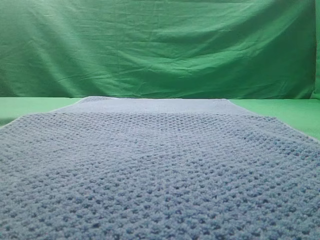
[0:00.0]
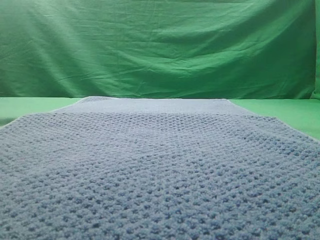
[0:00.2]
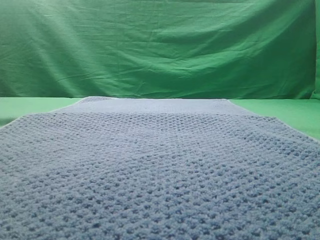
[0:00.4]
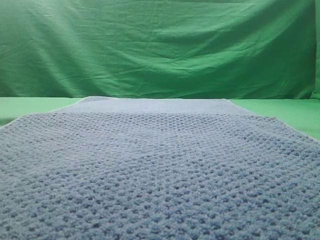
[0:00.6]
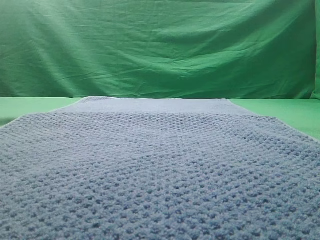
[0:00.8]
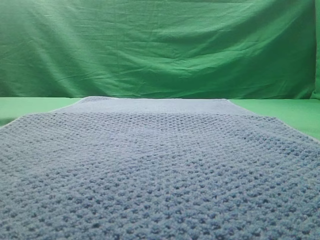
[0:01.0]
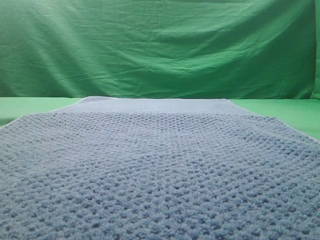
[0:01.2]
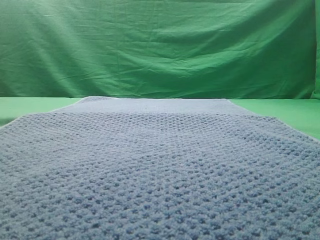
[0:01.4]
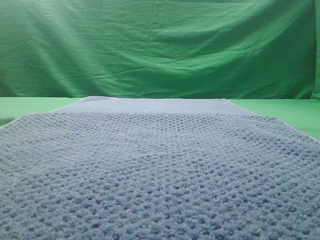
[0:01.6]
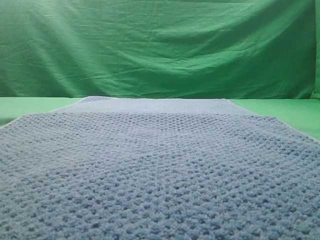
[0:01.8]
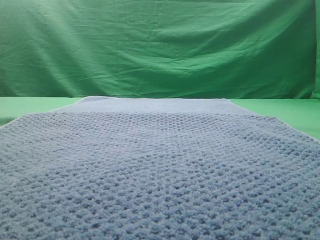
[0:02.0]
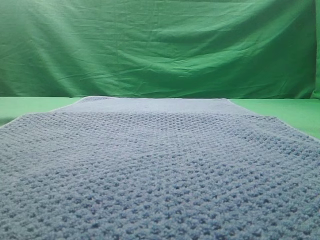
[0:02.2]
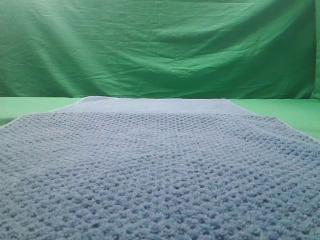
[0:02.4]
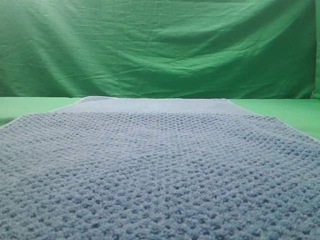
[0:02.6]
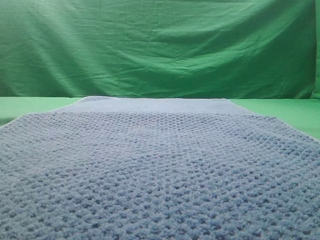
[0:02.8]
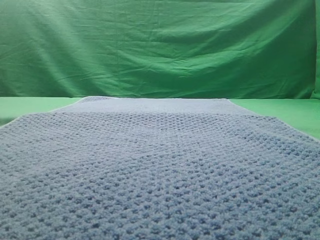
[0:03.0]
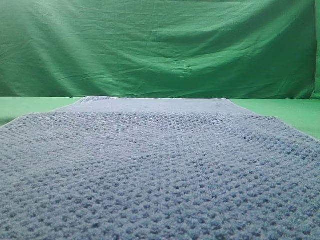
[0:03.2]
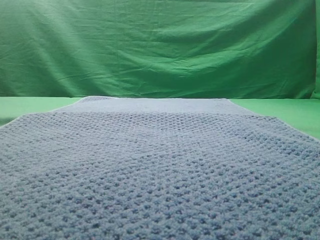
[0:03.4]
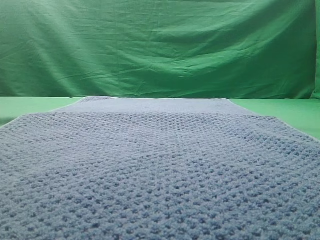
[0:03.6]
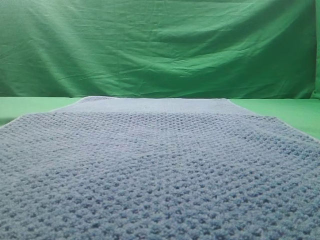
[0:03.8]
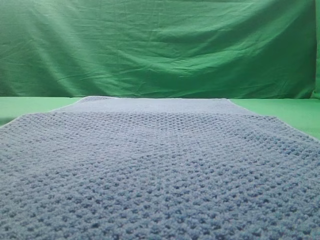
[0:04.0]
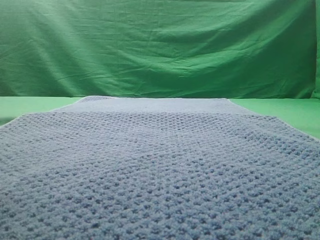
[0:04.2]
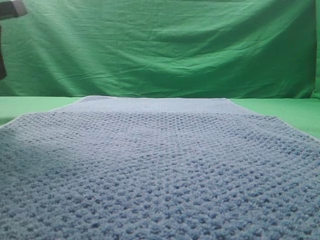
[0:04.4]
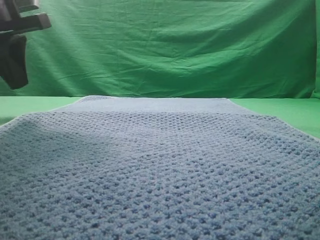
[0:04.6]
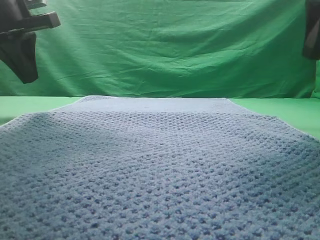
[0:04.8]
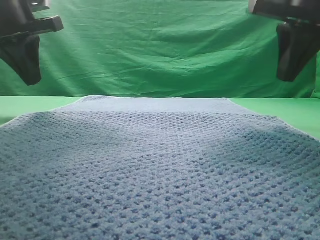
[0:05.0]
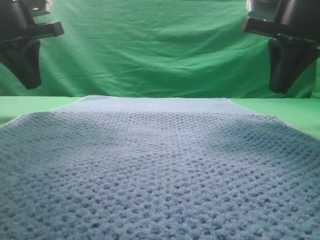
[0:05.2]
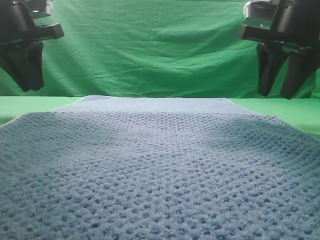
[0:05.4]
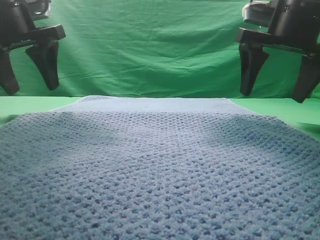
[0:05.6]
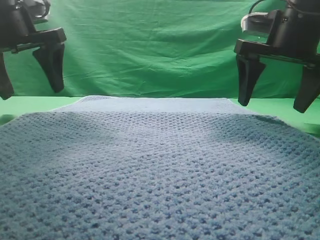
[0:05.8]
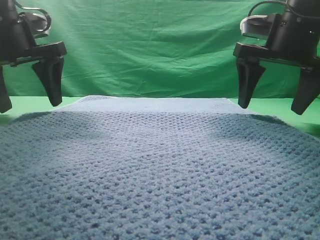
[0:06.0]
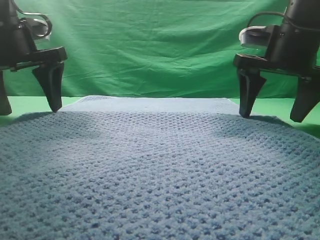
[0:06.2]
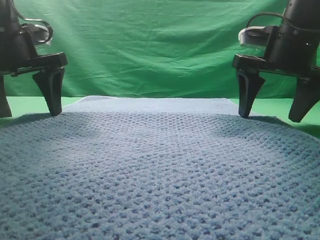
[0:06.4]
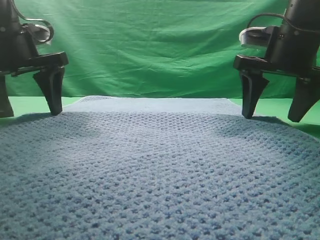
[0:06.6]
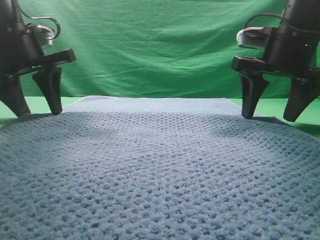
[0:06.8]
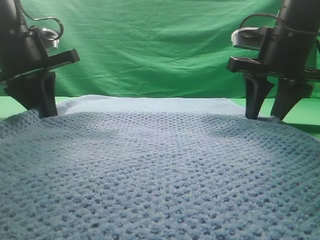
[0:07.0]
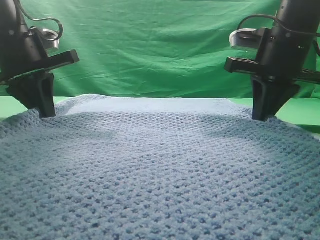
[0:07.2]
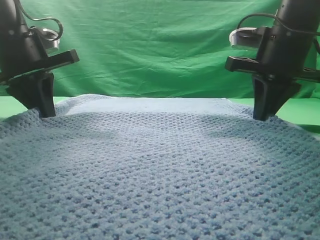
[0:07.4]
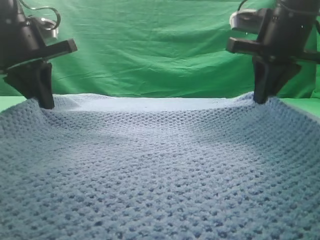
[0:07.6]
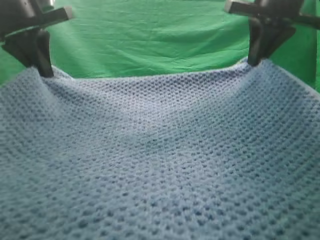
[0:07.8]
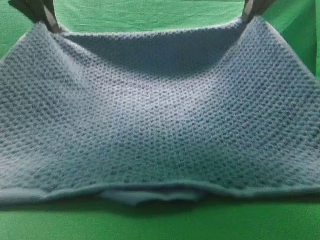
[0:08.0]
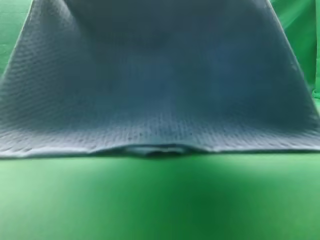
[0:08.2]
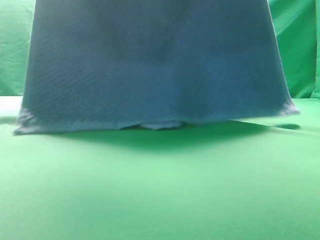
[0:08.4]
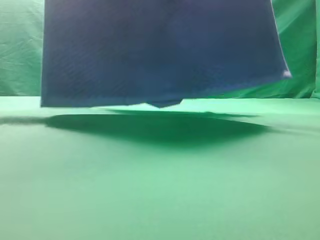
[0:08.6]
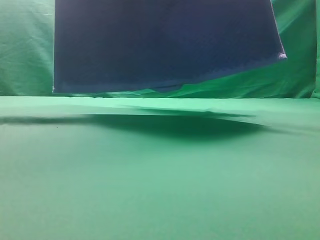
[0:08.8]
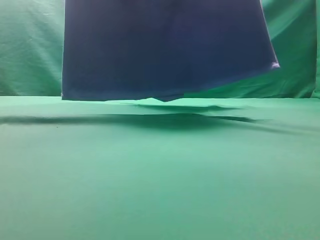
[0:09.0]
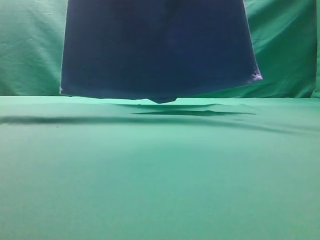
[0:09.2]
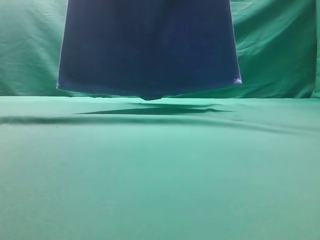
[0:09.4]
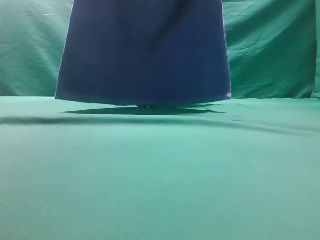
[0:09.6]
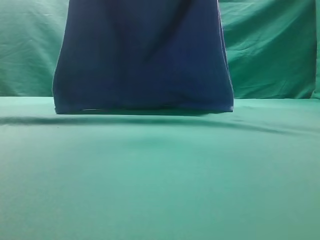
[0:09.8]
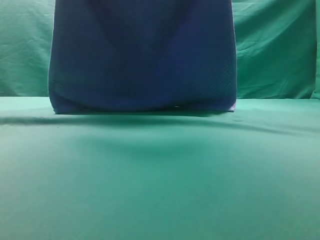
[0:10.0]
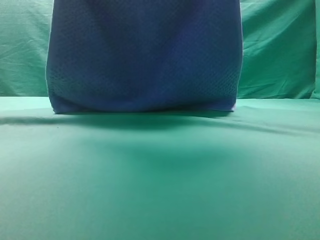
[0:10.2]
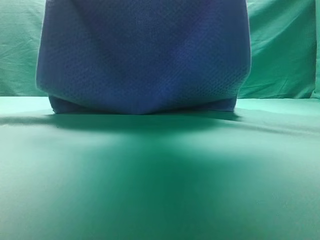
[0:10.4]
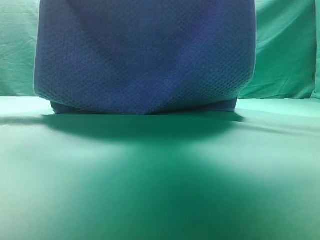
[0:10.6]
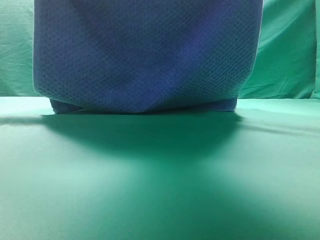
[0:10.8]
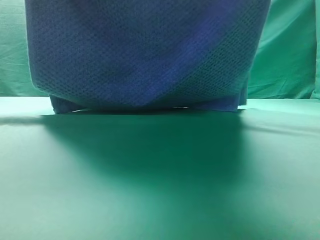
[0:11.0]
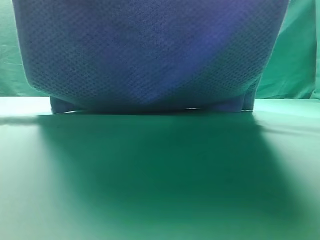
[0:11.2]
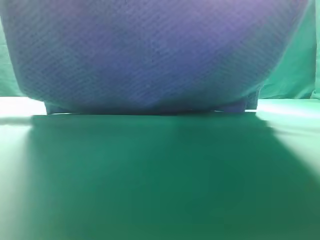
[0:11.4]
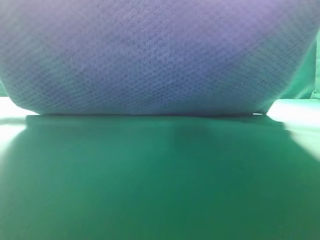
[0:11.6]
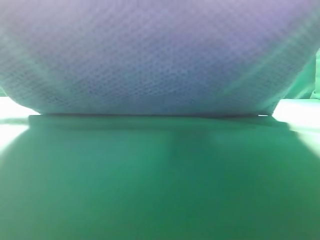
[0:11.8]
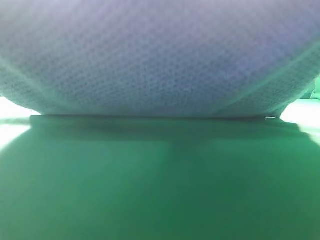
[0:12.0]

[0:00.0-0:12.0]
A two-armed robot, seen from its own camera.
Task of the whole recording: fold the towel on the table twice.
Step, 0:00.0 to 0:09.0: pick up the towel with two arm.

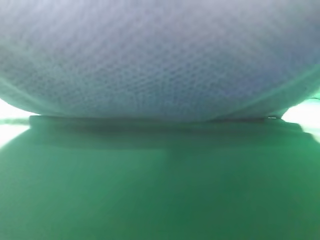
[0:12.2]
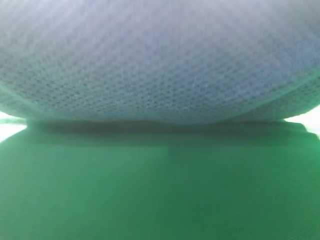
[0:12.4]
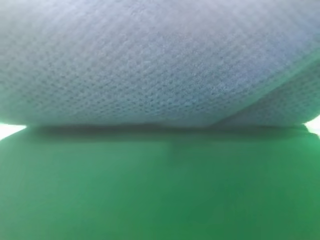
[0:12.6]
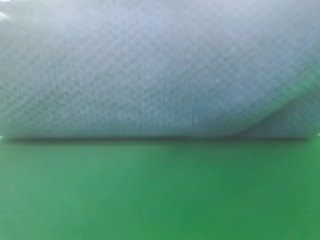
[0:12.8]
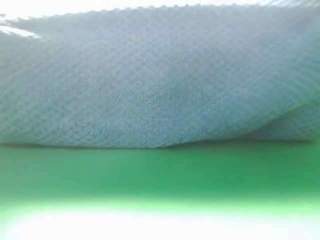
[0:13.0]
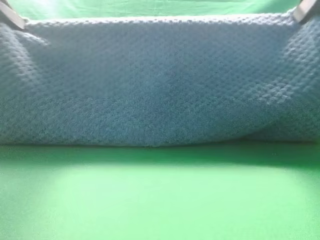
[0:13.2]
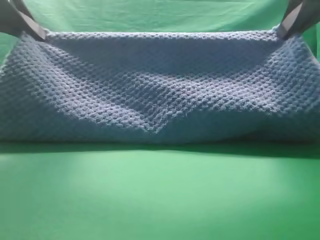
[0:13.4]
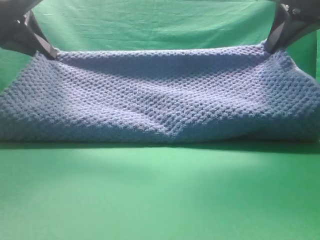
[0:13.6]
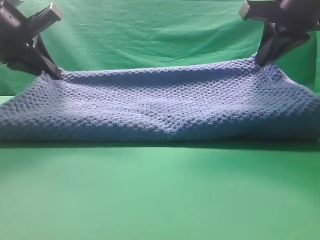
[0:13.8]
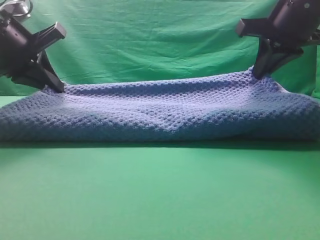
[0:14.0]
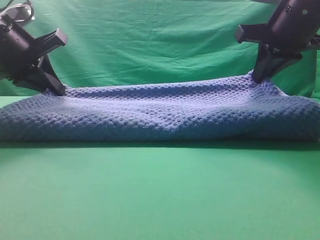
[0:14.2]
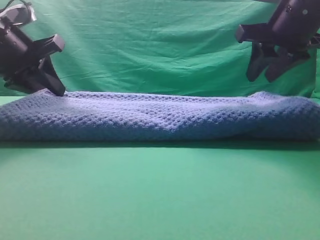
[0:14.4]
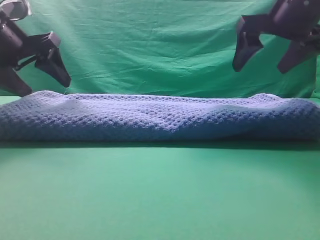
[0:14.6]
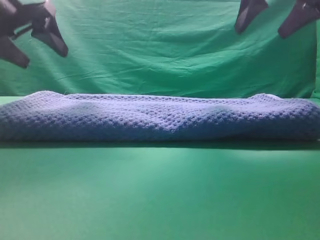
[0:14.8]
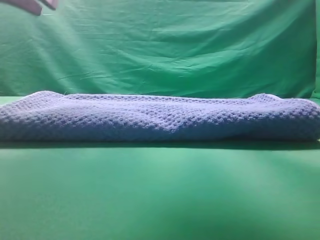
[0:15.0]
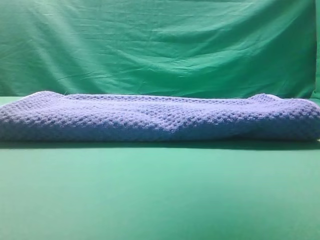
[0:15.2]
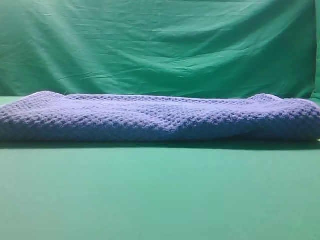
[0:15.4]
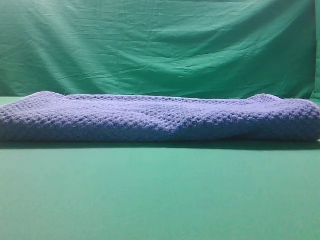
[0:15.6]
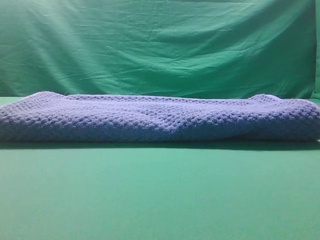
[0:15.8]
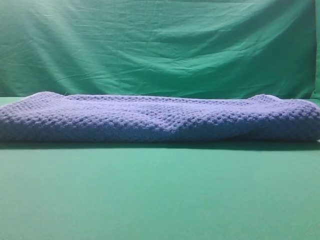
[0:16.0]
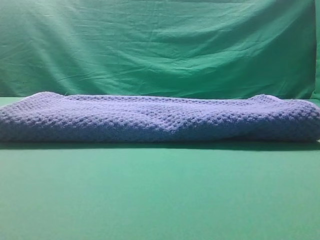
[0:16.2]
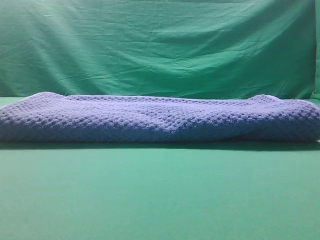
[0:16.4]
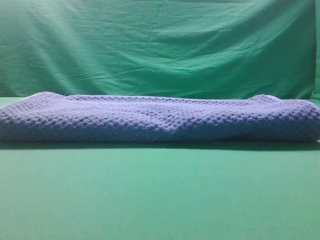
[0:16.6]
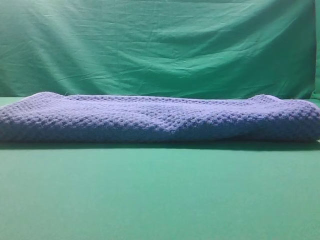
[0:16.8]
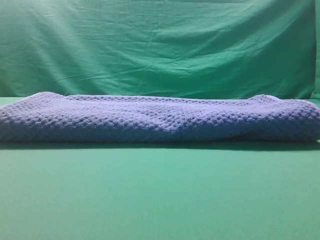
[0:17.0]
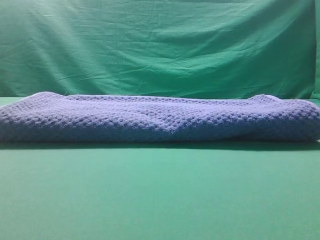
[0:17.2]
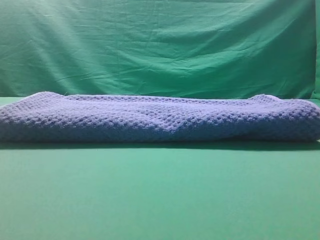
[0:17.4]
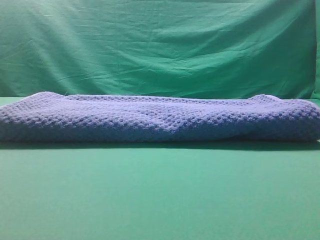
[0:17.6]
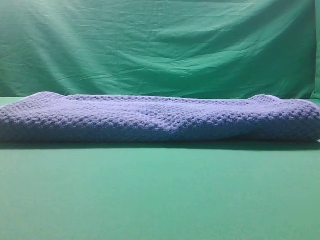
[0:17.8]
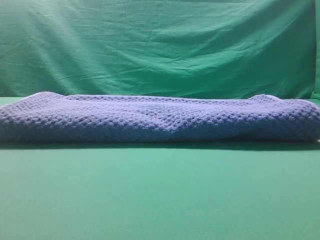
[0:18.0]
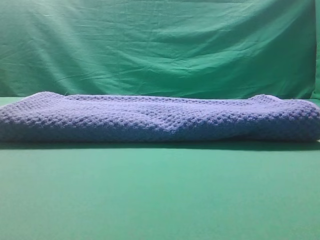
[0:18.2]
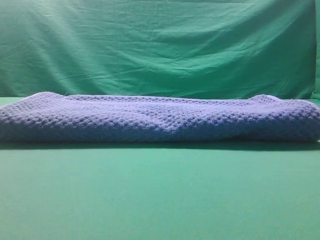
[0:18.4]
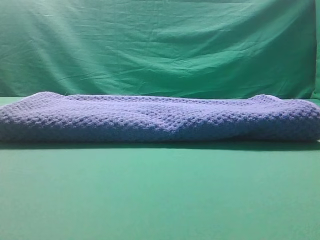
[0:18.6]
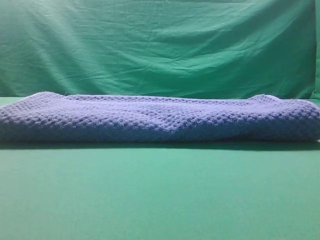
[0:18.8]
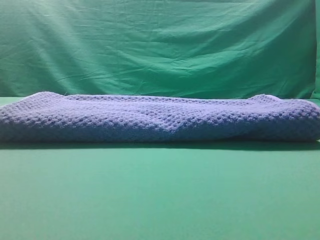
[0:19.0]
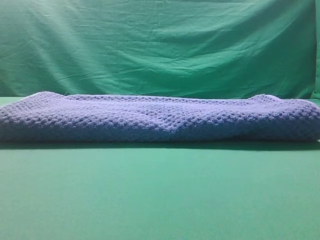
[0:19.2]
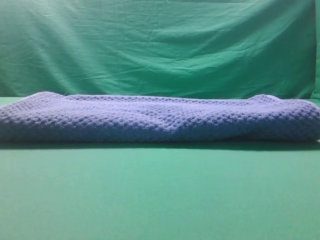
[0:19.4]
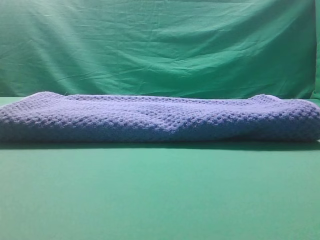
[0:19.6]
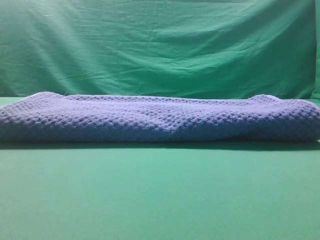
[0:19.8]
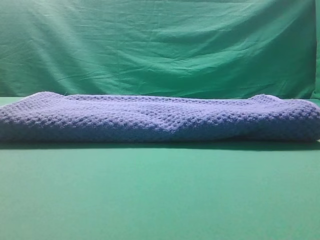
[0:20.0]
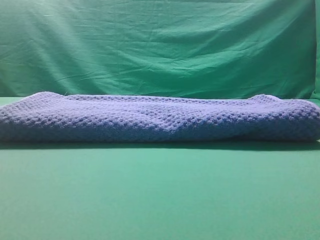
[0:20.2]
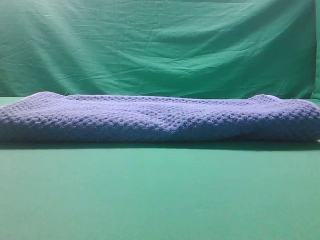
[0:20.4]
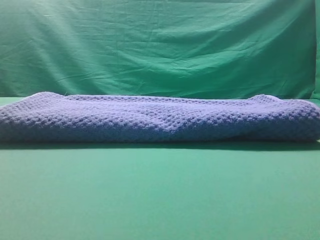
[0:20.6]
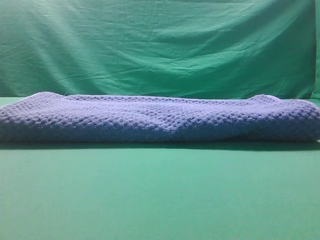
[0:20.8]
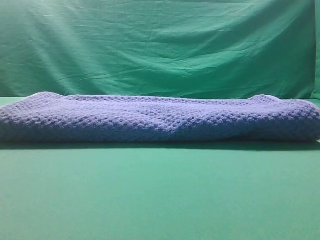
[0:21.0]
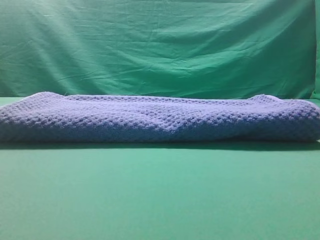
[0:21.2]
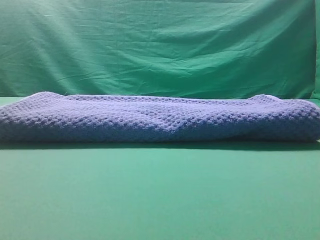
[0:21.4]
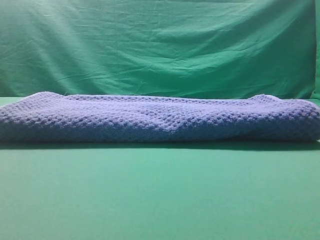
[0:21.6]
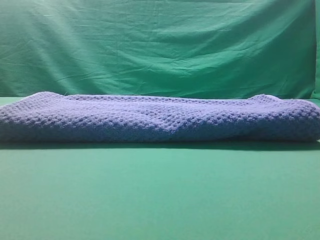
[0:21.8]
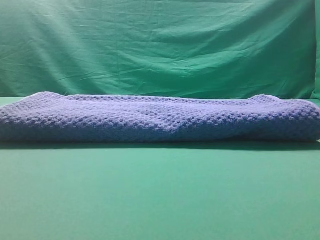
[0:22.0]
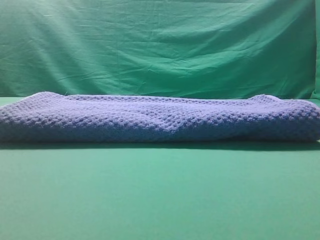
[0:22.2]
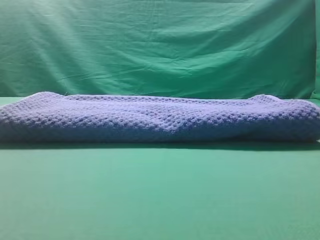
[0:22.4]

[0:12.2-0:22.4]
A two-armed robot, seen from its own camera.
Task of the whole recording: fold the towel on the table twice.
Step, 0:12.2 to 0:14.6: Fold the towel twice on the table.
